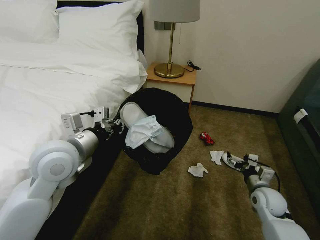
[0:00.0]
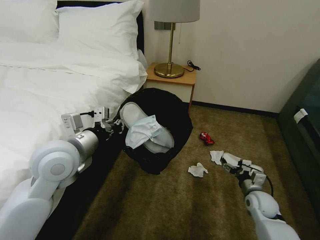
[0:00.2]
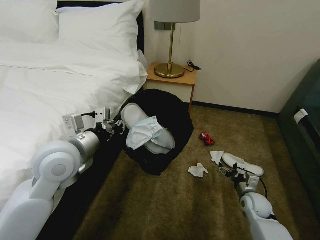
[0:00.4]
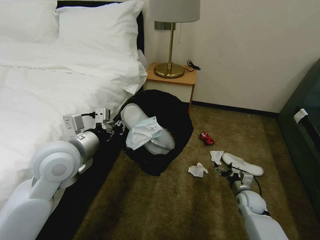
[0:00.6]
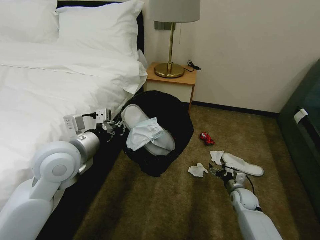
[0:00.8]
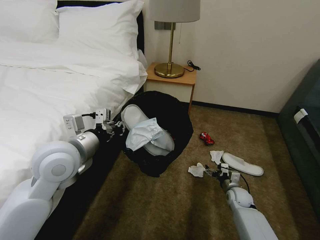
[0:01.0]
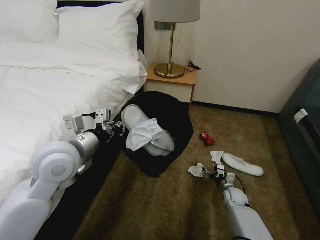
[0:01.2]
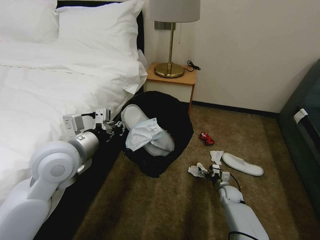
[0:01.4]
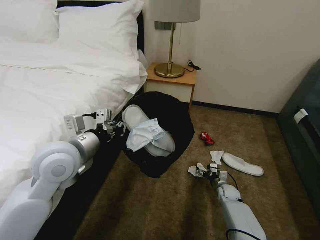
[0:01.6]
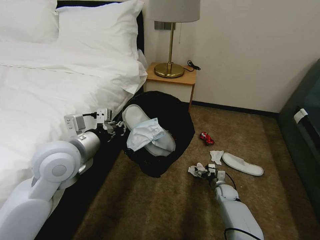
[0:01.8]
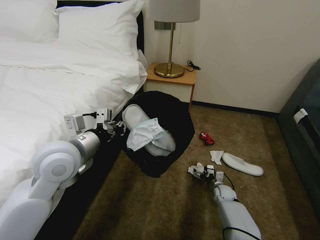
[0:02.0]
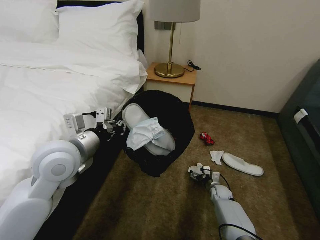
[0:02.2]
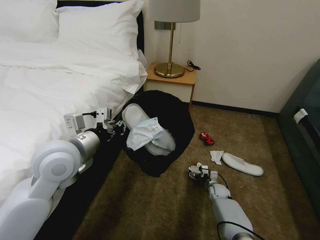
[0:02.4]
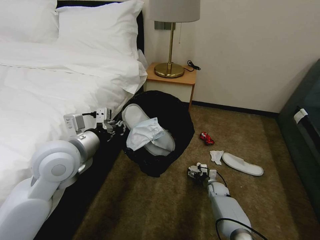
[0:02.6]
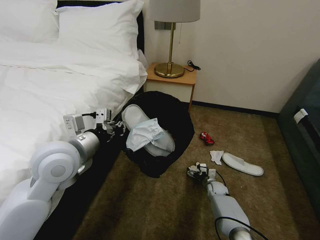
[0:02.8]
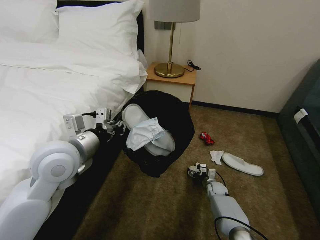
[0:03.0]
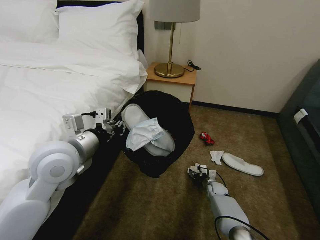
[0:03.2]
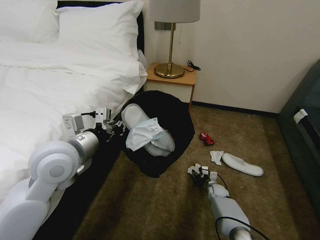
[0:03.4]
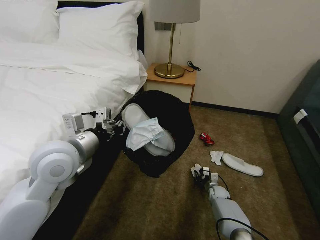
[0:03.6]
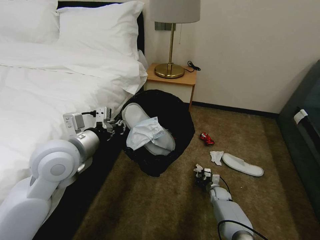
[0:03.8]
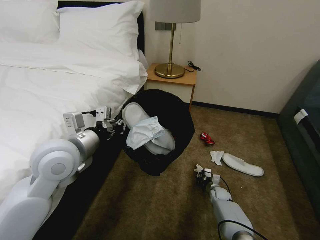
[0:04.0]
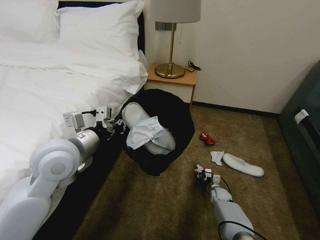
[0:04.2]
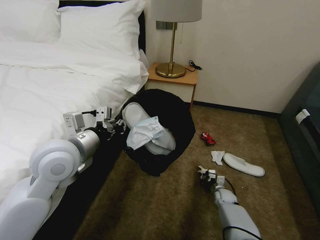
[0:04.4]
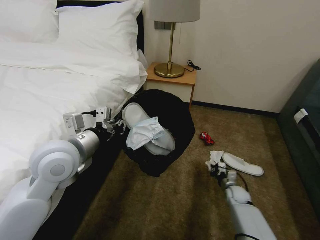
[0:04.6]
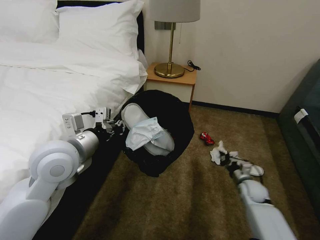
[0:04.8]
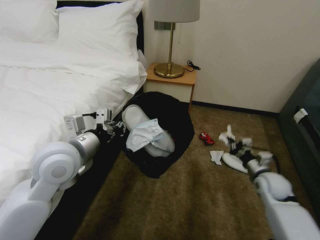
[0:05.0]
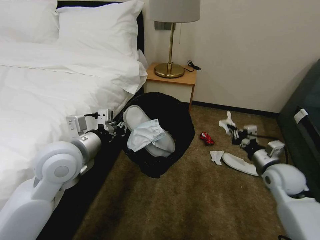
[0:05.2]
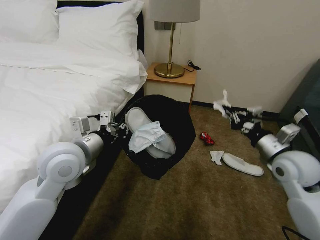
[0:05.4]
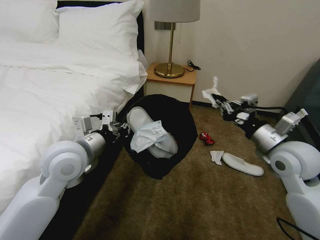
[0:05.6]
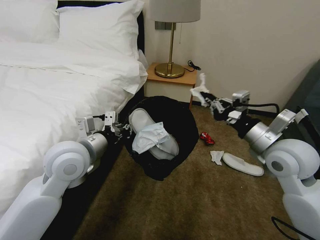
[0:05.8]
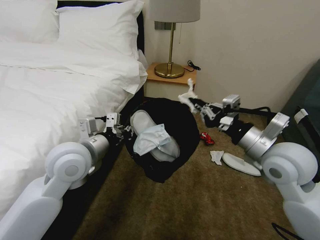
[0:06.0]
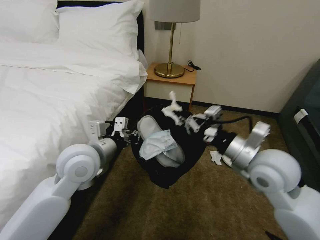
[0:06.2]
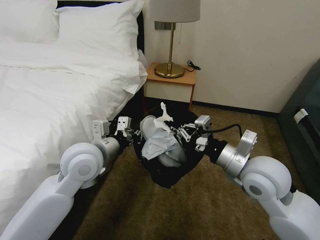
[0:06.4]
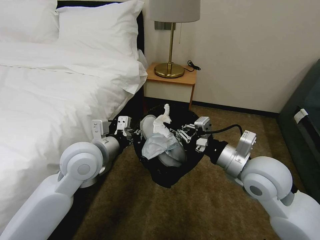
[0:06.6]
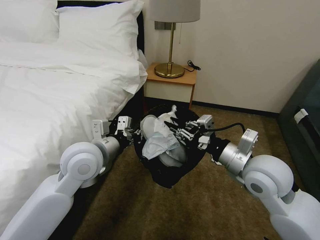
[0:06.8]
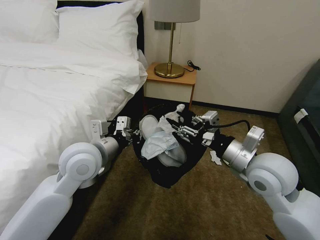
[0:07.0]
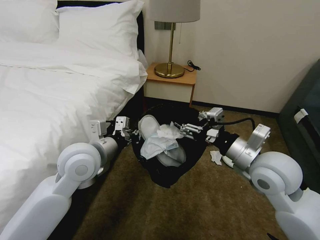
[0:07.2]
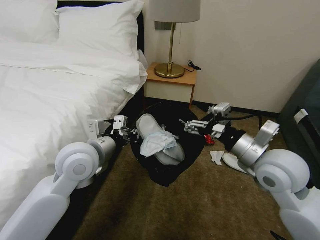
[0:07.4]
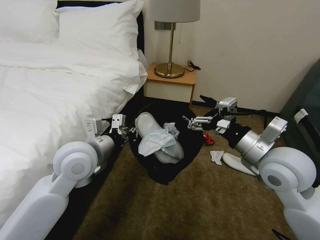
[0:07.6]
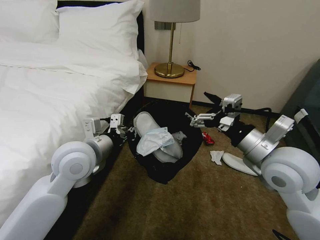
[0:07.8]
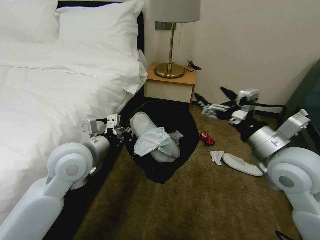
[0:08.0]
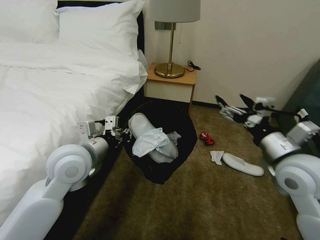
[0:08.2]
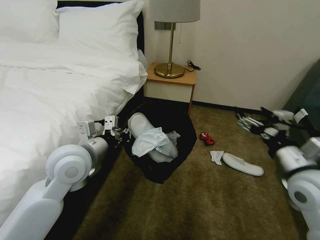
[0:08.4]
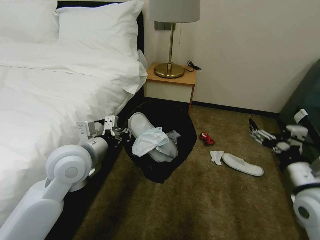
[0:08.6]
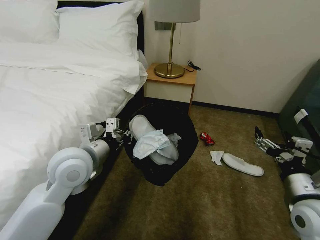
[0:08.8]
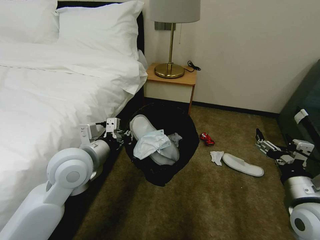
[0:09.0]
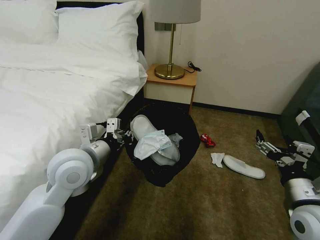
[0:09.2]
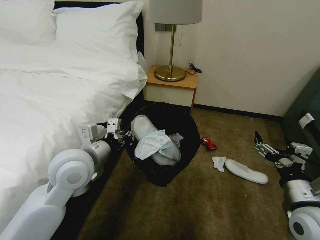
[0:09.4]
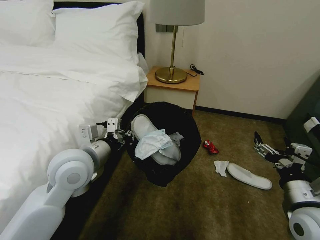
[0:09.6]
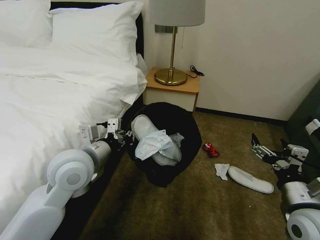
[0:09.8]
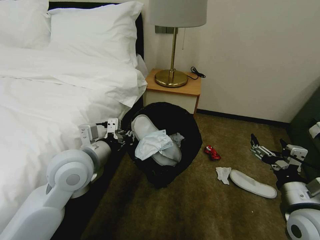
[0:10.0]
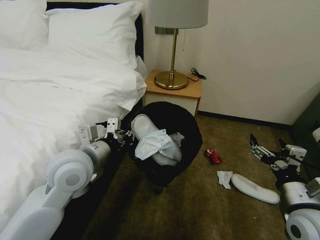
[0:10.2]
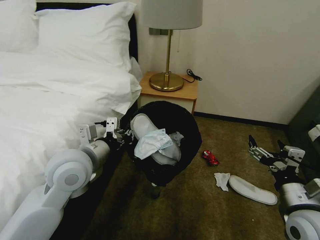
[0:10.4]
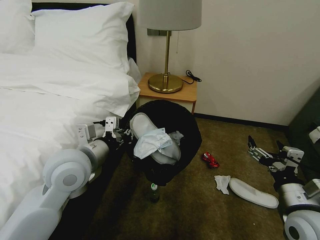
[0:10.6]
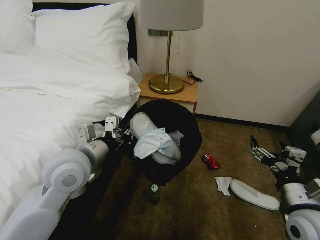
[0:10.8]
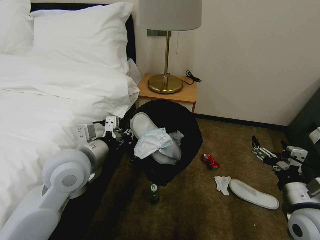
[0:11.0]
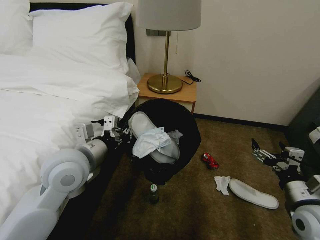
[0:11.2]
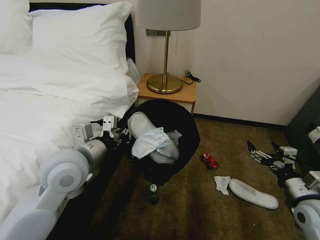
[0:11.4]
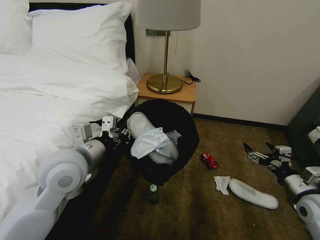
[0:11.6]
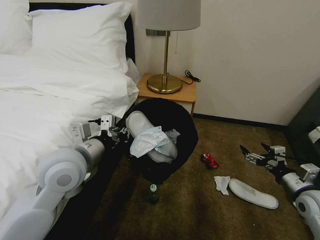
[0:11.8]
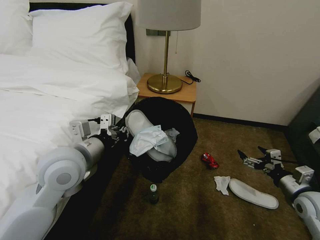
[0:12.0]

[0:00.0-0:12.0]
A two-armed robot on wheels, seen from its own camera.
Task of the whole recording: Pick up the trash bin, then pick up the garbage on the floor and place it into the trash bin.
0:00.0 to 0:01.6: The right gripper goes approximately 20 cm downward and forward.
0:01.6 to 0:03.0: The right gripper shifts by roughly 5 cm.
0:03.0 to 0:04.4: The right gripper closes.
0:04.4 to 0:06.0: The right gripper heads upward, covering about 50 cm.
0:06.0 to 0:07.6: The right gripper opens.
0:07.6 to 0:09.0: The right gripper is displaced downward, backward and to the right by approximately 15 cm.
0:10.4 to 0:12.0: The right gripper goes roughly 15 cm to the right, downward and forward.

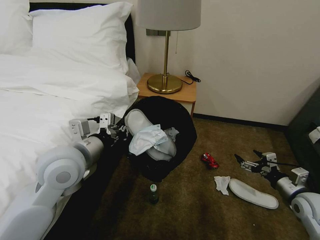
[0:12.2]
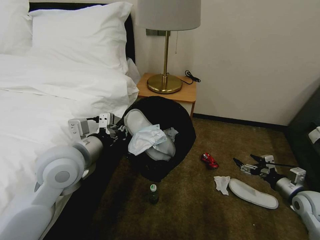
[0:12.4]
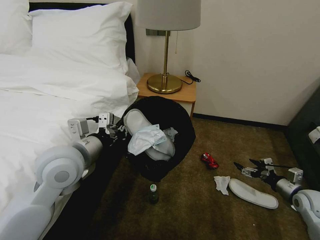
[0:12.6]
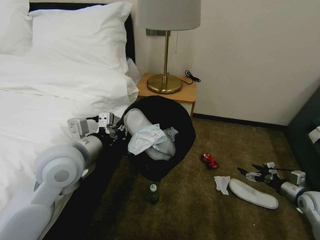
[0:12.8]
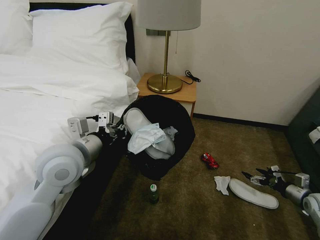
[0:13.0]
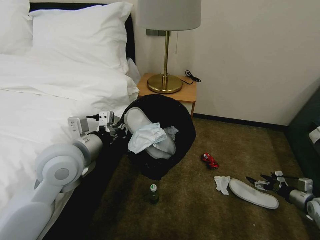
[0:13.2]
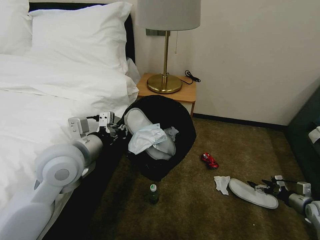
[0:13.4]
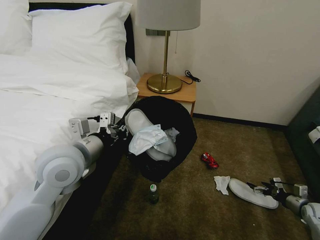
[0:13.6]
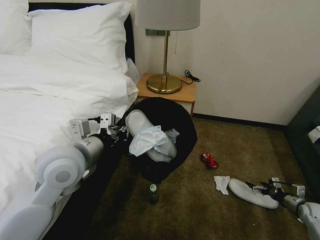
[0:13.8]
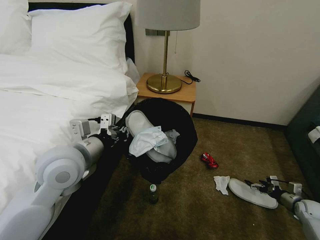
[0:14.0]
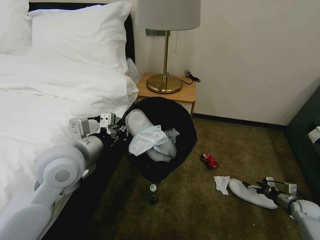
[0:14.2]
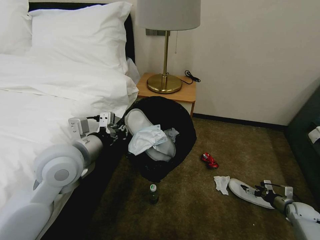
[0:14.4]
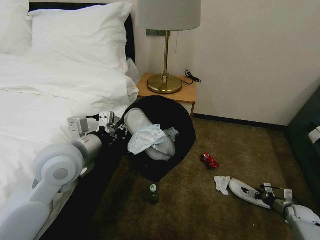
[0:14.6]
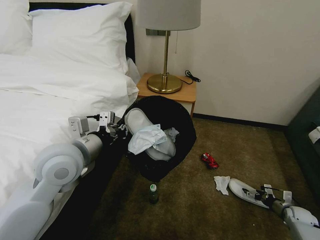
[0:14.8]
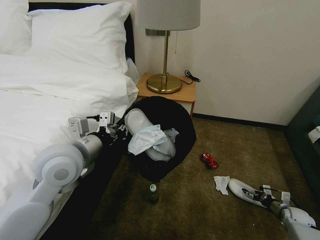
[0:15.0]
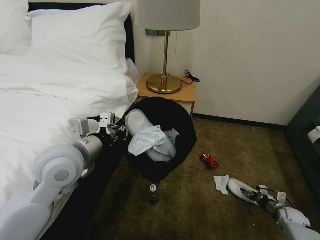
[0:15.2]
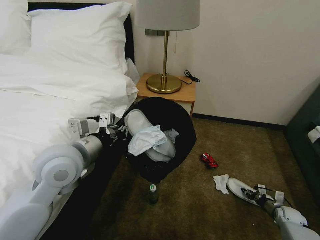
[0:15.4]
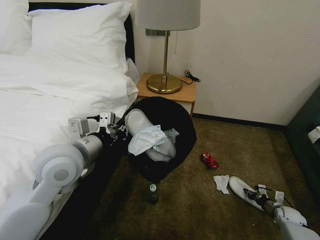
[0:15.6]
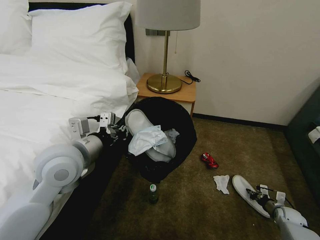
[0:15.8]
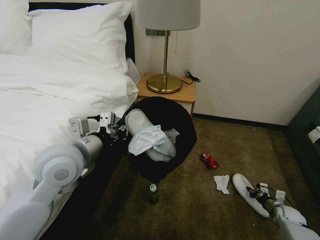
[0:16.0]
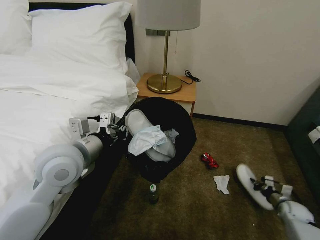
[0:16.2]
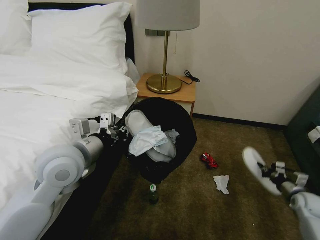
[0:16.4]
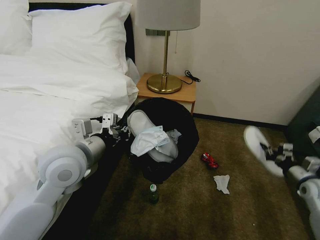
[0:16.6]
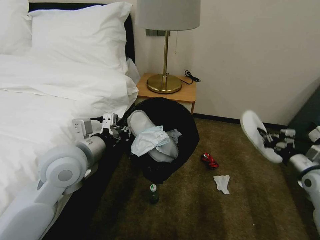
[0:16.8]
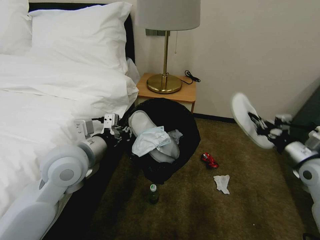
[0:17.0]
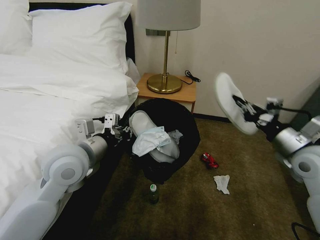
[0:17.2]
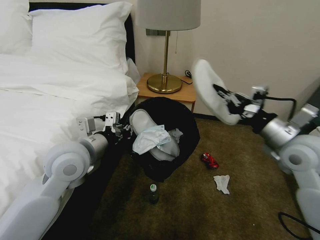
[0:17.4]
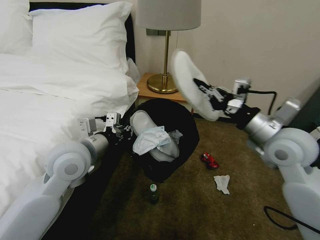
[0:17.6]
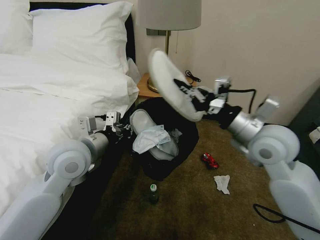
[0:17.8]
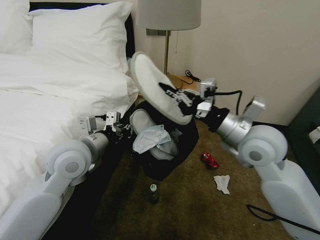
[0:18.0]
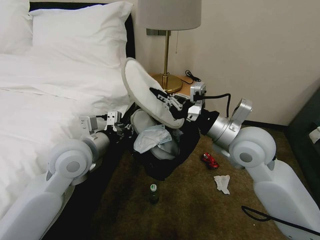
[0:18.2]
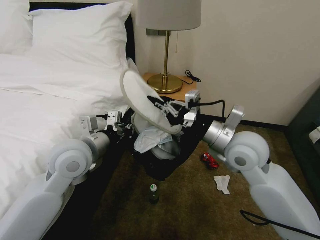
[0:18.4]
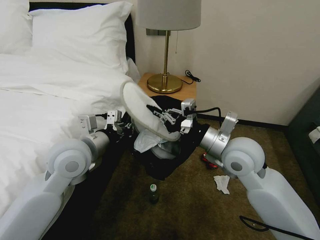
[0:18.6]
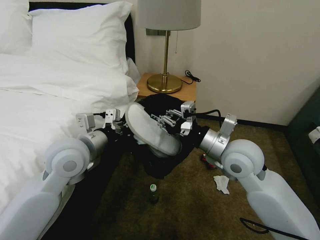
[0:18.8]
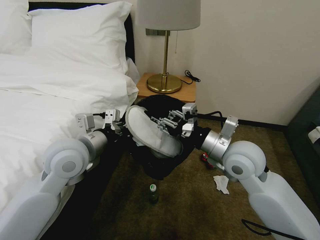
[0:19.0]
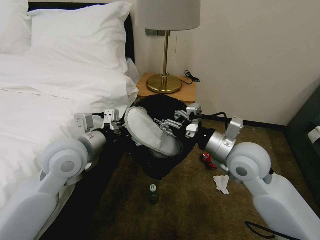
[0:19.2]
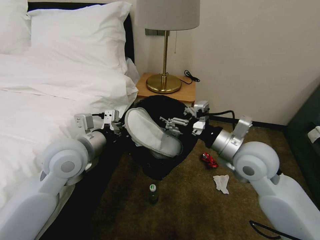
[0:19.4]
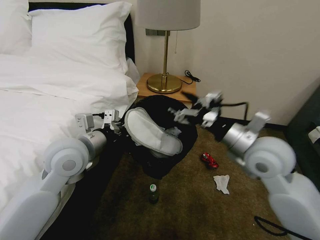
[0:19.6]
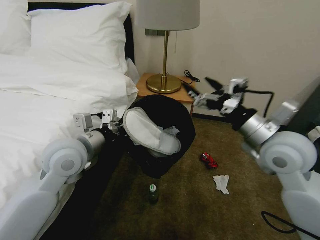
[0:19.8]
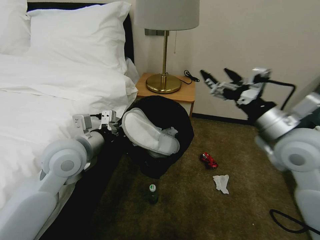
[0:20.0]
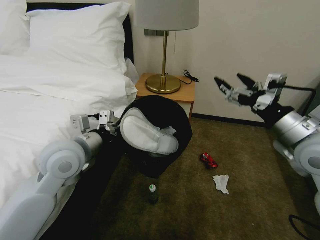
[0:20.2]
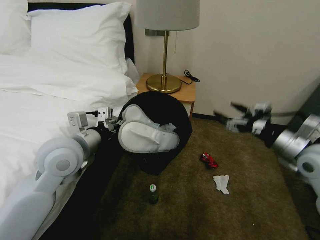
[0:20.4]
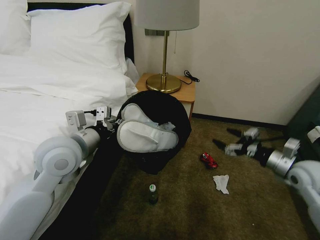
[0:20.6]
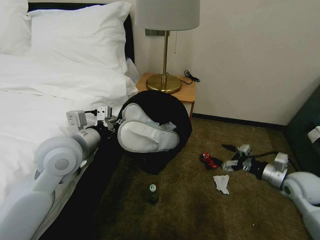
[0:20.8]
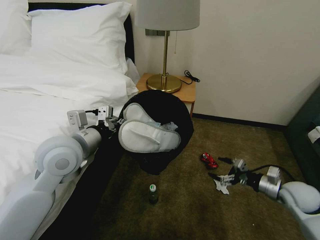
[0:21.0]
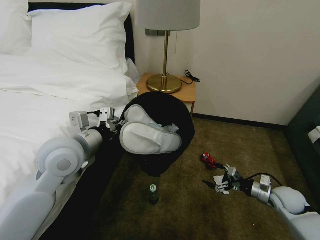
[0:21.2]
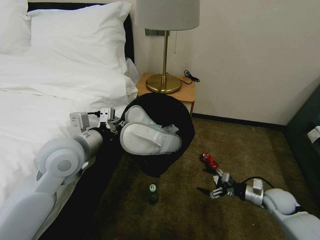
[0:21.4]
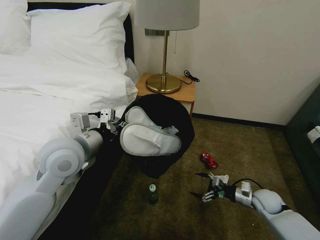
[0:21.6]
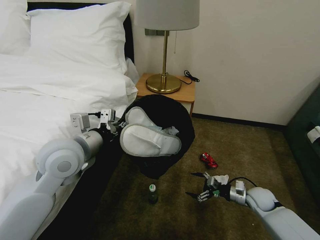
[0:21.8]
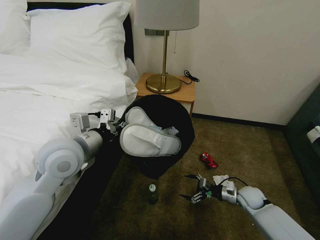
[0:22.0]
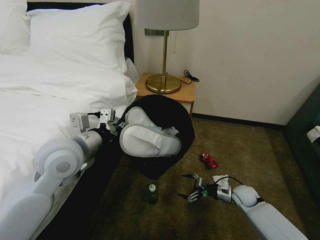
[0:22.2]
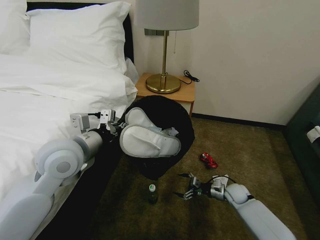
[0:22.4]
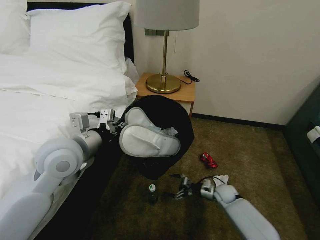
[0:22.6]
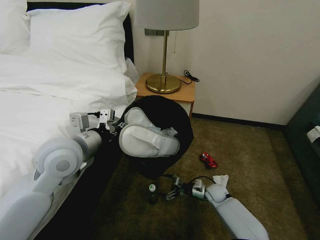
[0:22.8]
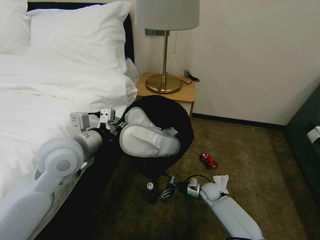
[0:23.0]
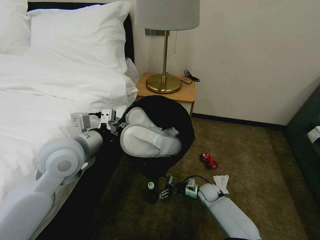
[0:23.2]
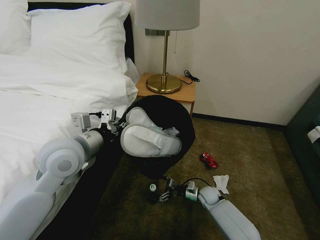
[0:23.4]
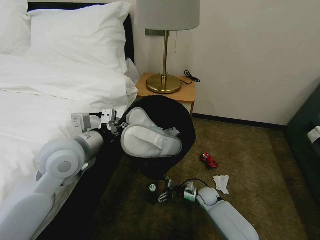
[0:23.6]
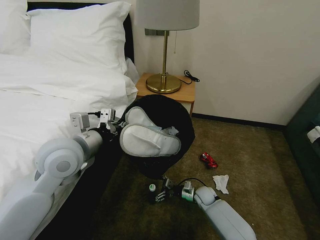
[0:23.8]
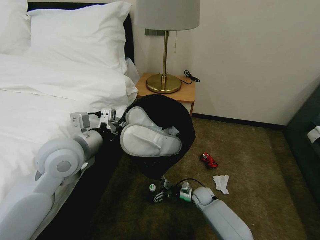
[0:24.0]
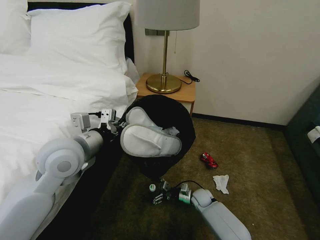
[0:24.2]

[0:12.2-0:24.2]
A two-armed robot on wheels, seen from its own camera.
Task of the whole recording: Pick up the trash bin, then pick up the garbage on the floor and place it into the trash bin.
0:12.2 to 0:13.8: The right gripper is displaced downward and to the right by about 20 cm.
0:13.8 to 0:15.2: The right gripper heads downward, covering some 5 cm, and closes.
0:15.2 to 0:16.6: The right gripper heads upward, covering some 20 cm, and closes.
0:16.6 to 0:18.2: The right gripper moves to the left and upward, roughly 40 cm.
0:18.2 to 0:19.8: The right gripper travels to the right by approximately 5 cm, and opens up.
0:19.8 to 0:21.2: The right gripper goes roughly 35 cm downward and to the right.
0:21.2 to 0:22.6: The right gripper shifts about 20 cm to the left, downward and forward.
0:22.6 to 0:24.2: The right gripper moves to the left, about 10 cm.
